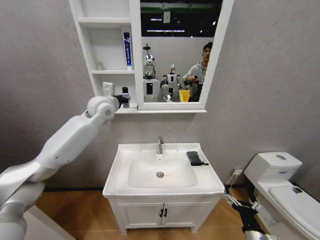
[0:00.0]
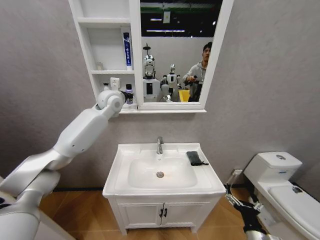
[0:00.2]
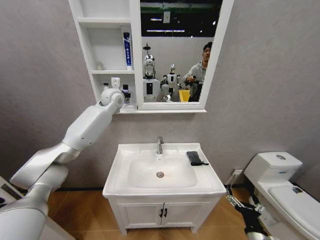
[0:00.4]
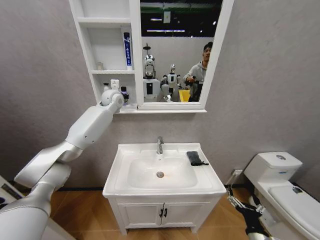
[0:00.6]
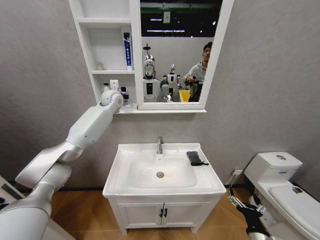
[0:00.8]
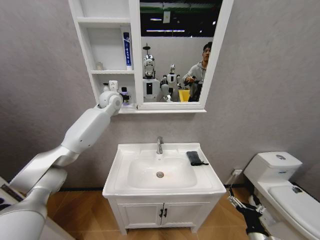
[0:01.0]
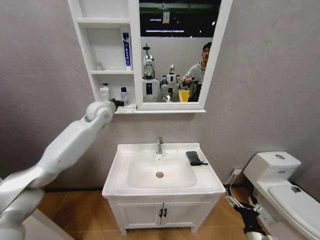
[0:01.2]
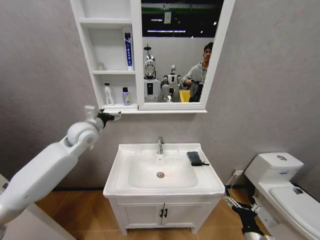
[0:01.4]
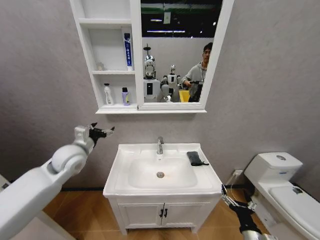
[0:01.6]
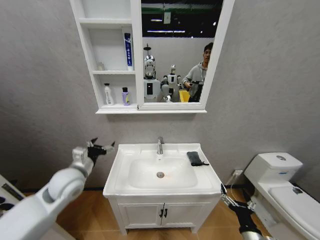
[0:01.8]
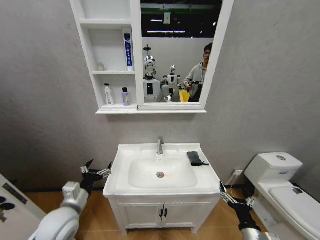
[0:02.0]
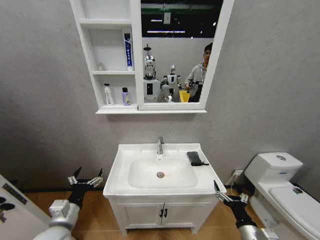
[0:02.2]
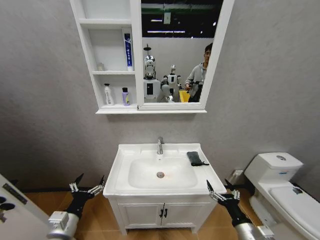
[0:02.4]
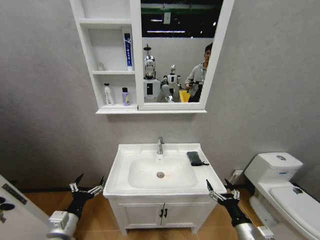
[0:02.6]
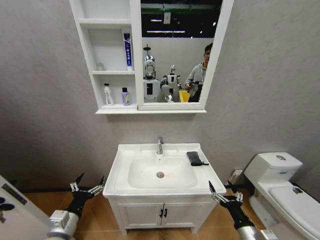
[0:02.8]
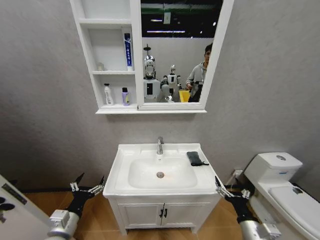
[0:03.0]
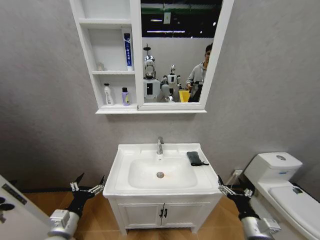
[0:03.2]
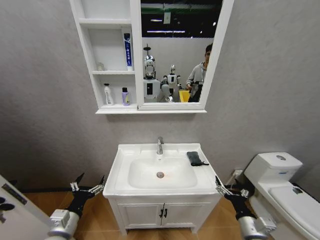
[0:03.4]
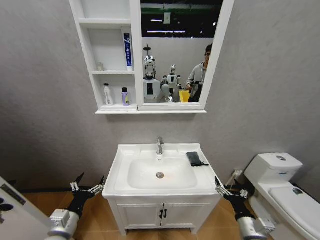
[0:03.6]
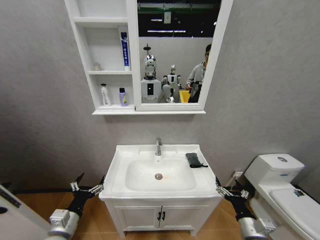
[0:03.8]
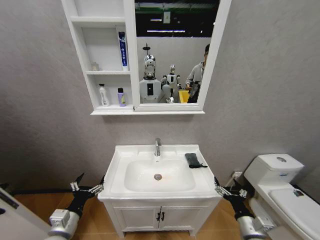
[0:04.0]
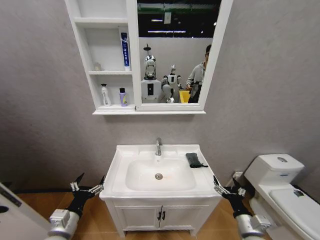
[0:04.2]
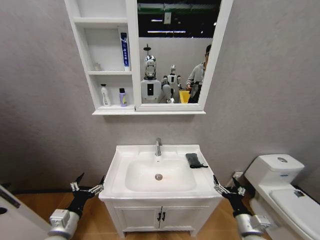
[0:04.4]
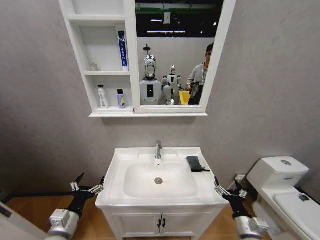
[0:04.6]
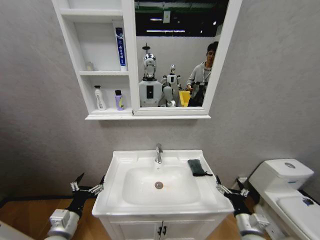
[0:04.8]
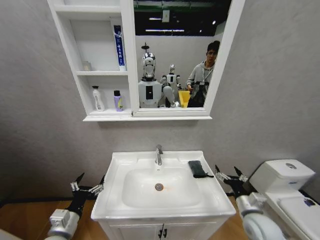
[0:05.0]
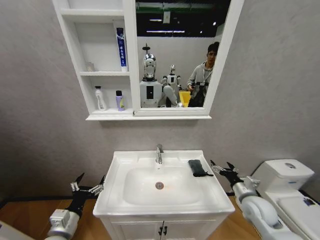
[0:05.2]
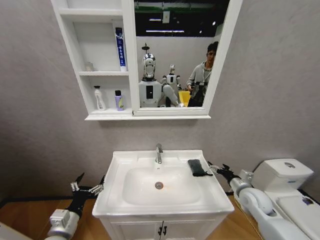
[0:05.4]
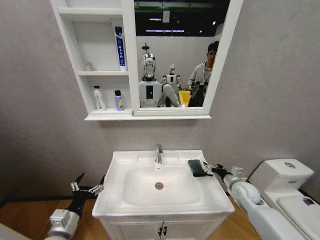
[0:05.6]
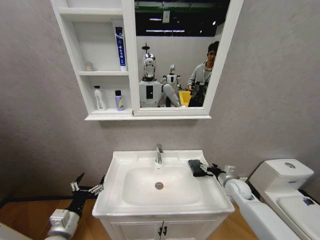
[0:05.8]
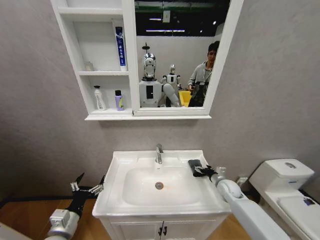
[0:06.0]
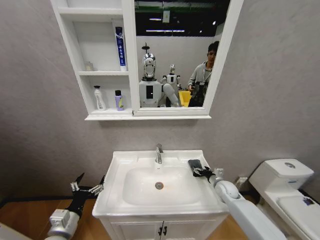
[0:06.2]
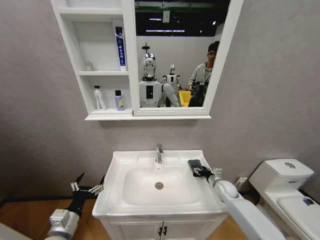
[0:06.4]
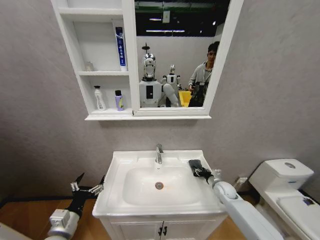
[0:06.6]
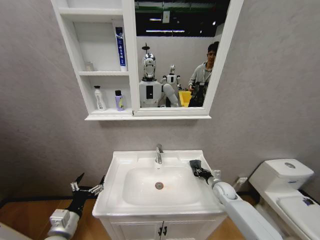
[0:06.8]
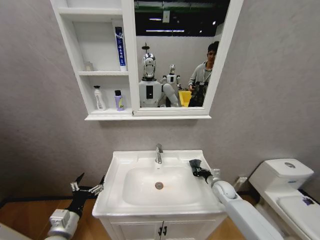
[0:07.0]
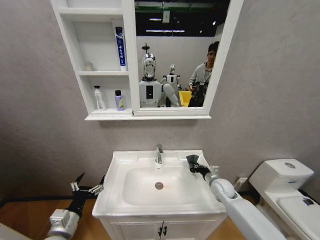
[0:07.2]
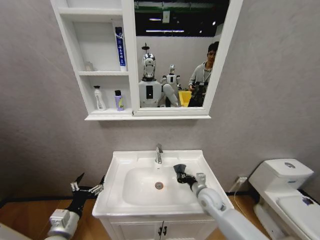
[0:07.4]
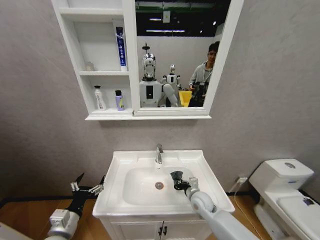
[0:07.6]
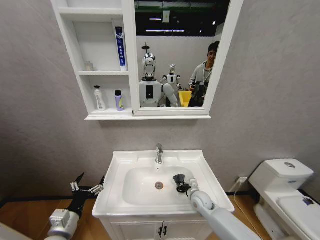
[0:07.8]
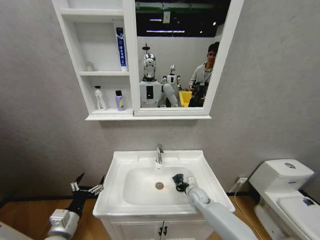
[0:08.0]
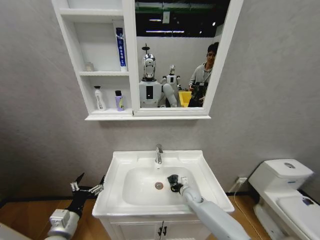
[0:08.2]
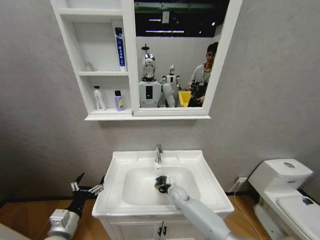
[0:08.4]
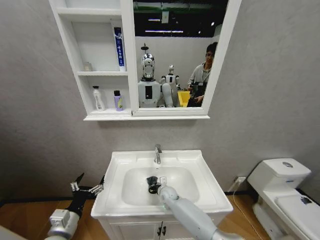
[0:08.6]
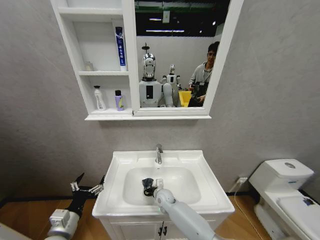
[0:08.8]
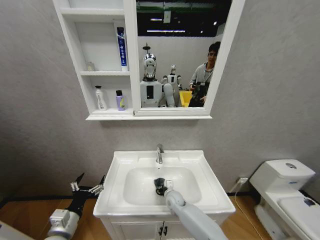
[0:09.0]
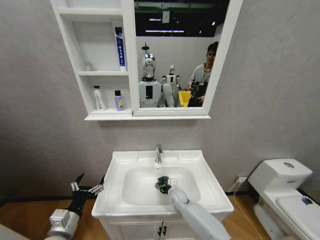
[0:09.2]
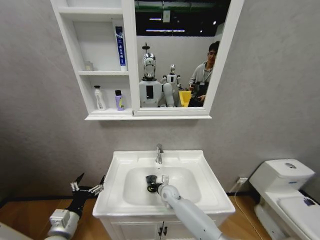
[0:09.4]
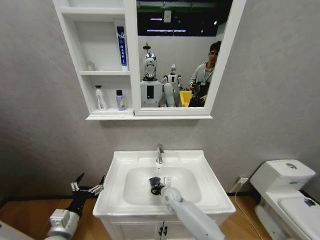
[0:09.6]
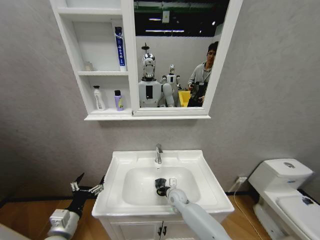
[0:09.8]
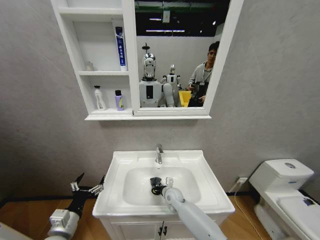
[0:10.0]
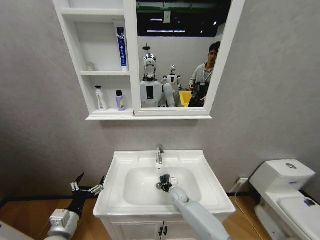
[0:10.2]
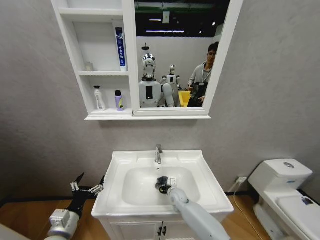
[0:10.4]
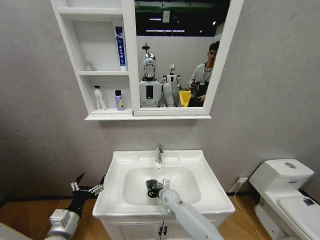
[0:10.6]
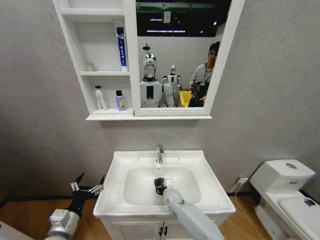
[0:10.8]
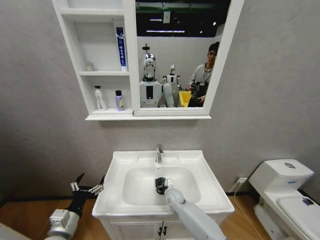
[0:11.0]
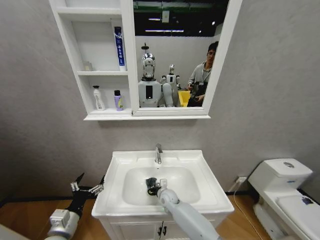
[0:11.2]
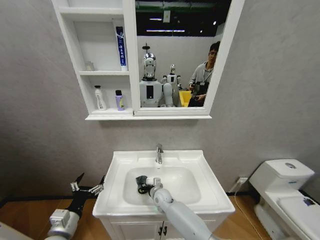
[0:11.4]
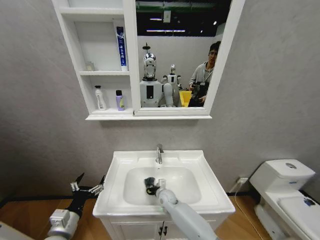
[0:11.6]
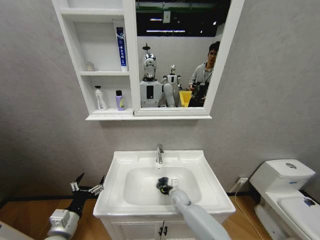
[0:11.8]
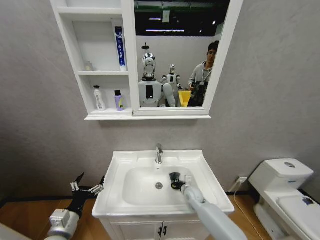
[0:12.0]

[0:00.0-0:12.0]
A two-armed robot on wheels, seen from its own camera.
Task of the whole recording: Move facial cleanser and shampoo from washbasin to cabinet, then wipe washbasin with towel.
0:00.0 to 0:01.6: The left gripper is displaced backward, downward and to the left by about 25 cm, and opens.
0:01.6 to 0:03.0: The left gripper travels backward and downward by about 25 cm.
0:03.0 to 0:04.4: The grippers stay close to where they were, moving slightly.
0:04.4 to 0:06.0: The right gripper shifts approximately 20 cm forward.
0:06.0 to 0:07.6: The right gripper is displaced to the left by about 15 cm, and closes.
0:07.6 to 0:09.0: The right gripper moves to the left and downward, roughly 15 cm.
0:09.0 to 0:10.4: The grippers stay close to where they were, moving slightly.
0:10.4 to 0:12.0: The right gripper goes some 10 cm to the right.

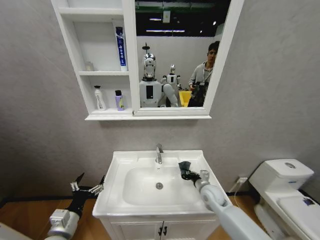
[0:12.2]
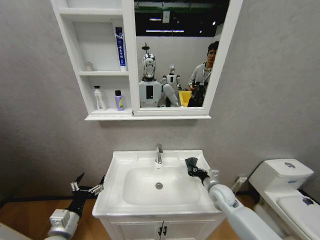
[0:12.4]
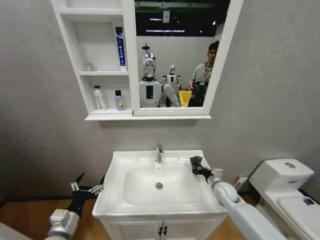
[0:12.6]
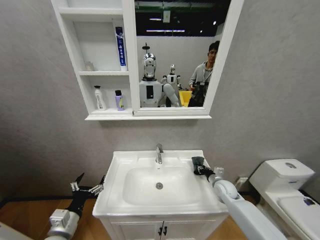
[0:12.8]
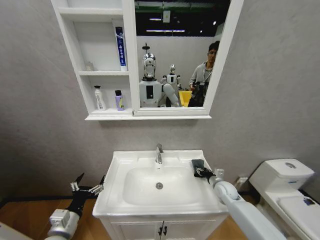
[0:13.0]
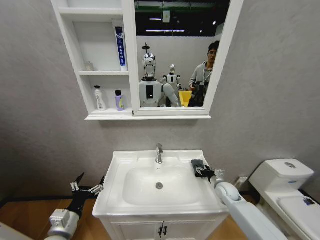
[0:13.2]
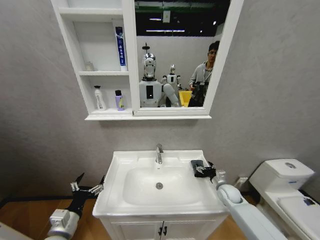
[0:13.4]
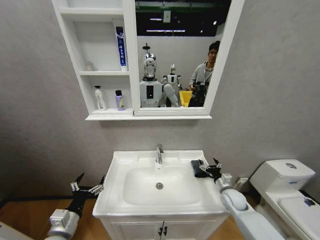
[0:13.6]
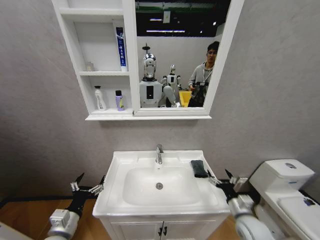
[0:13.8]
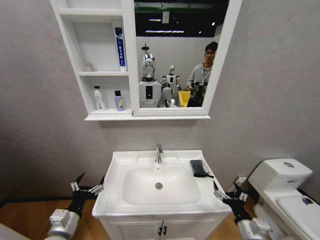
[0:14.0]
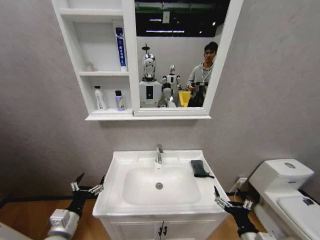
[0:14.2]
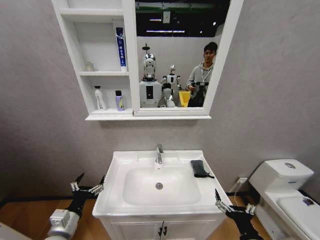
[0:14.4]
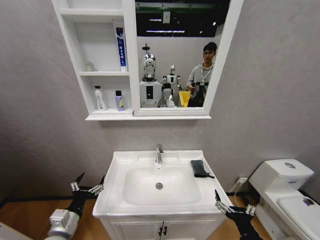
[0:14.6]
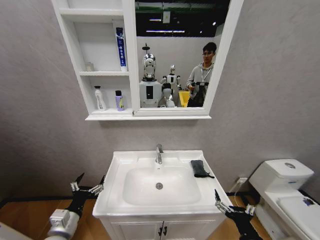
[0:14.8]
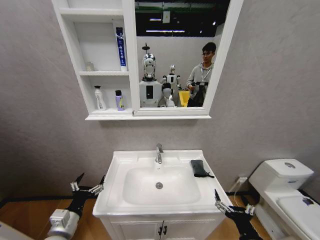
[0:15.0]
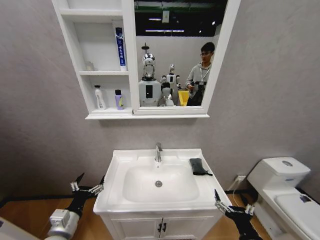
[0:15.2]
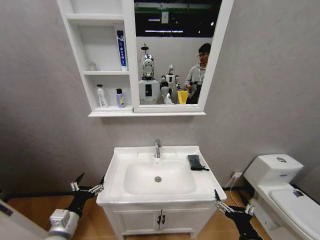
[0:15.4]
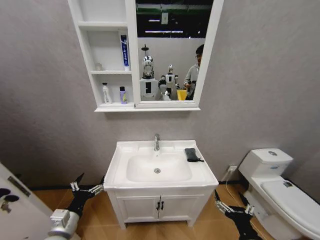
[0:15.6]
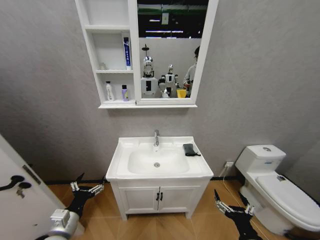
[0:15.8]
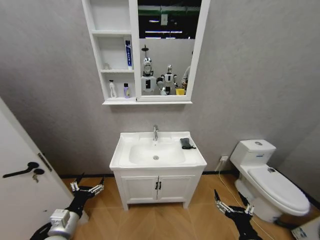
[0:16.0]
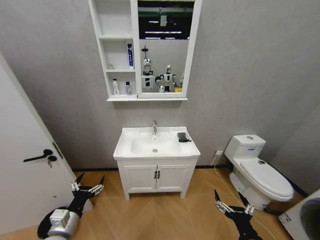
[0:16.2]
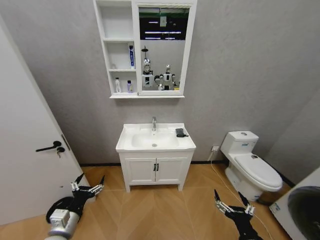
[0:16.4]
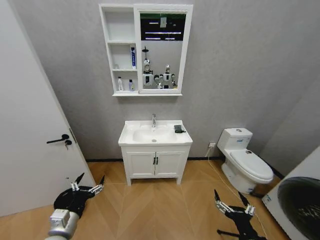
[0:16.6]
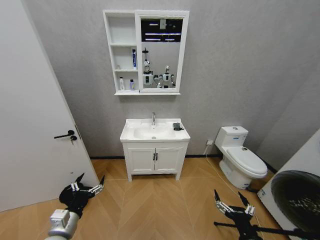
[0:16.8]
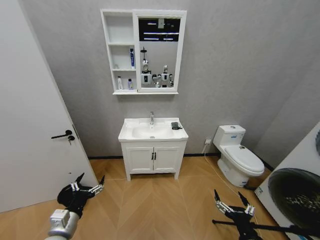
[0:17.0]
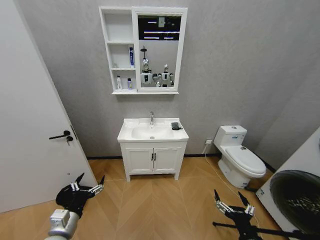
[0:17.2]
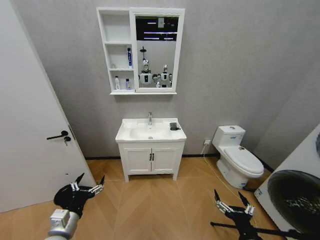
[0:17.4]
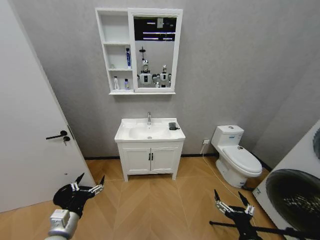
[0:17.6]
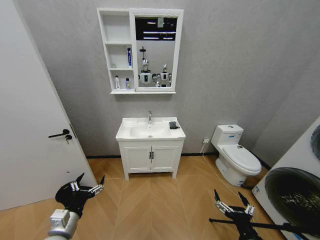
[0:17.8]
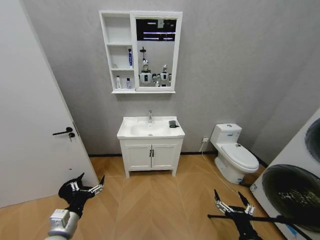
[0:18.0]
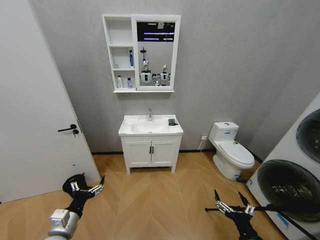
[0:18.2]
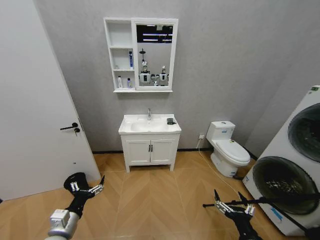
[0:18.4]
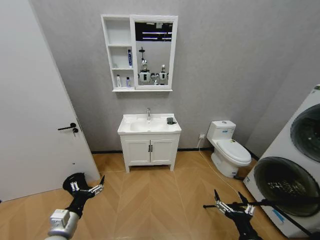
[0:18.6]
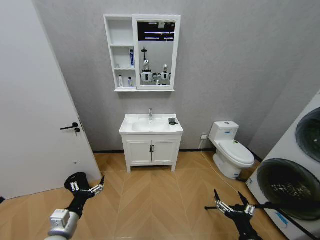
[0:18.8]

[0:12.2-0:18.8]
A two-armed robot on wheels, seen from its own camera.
Task of the whole recording: Move facial cleanser and shampoo from washbasin to cabinet, then wipe washbasin with towel.
0:12.2 to 0:13.8: The right gripper heads backward and to the right, covering about 15 cm, and opens up.
0:13.8 to 0:15.4: The right gripper is displaced backward and to the left by some 15 cm.
0:17.2 to 0:18.8: Both grippers stay about where they are.
